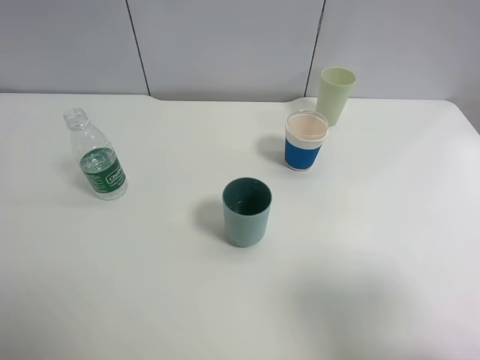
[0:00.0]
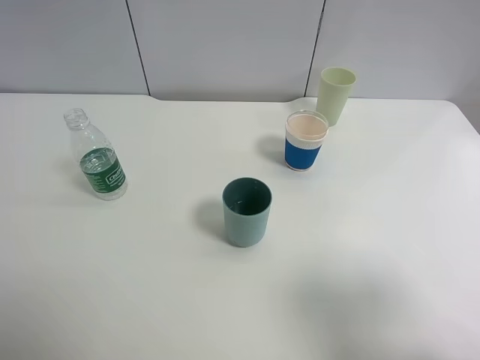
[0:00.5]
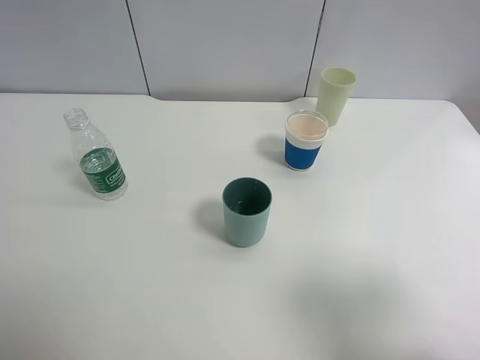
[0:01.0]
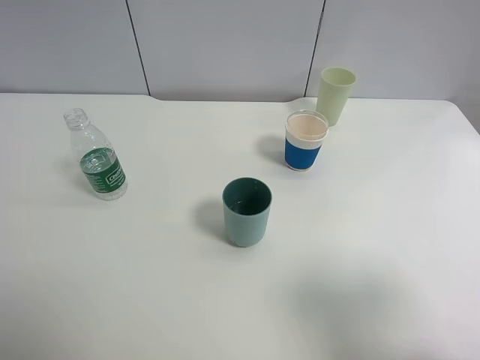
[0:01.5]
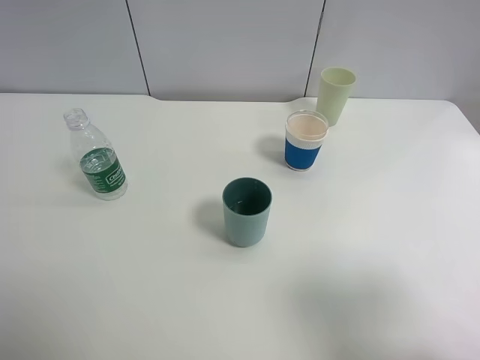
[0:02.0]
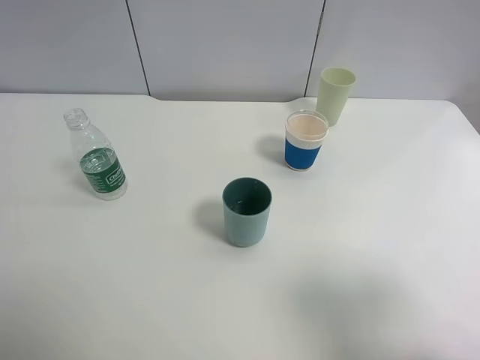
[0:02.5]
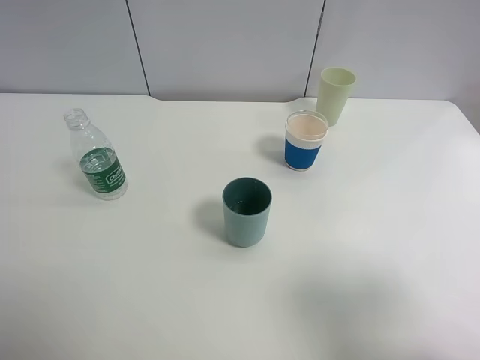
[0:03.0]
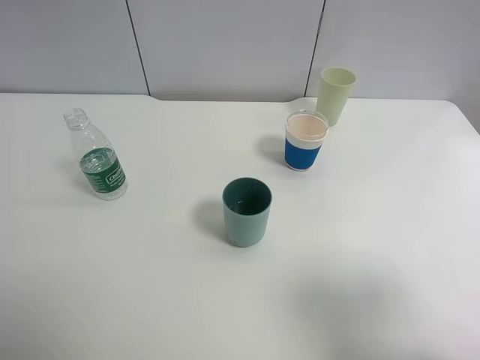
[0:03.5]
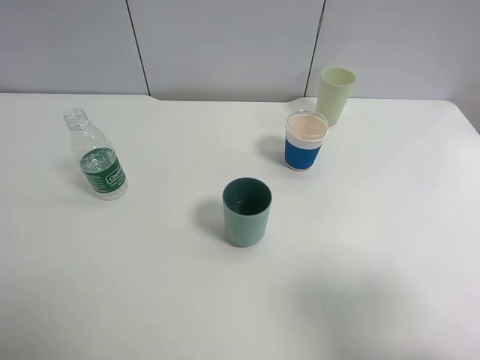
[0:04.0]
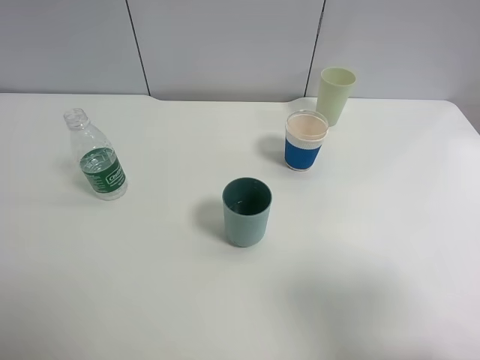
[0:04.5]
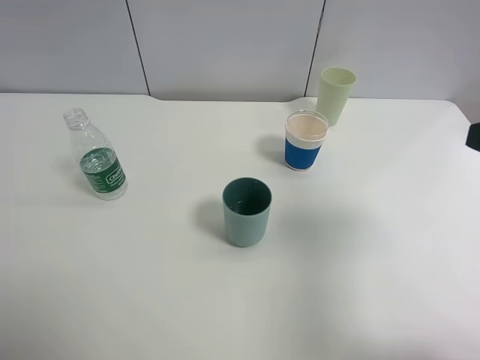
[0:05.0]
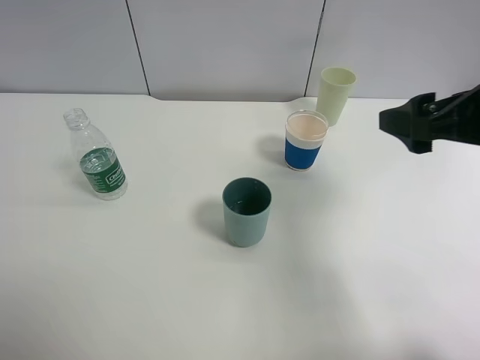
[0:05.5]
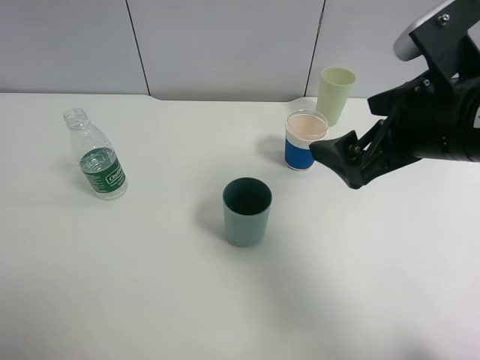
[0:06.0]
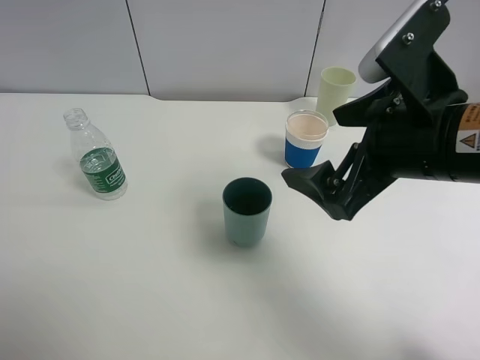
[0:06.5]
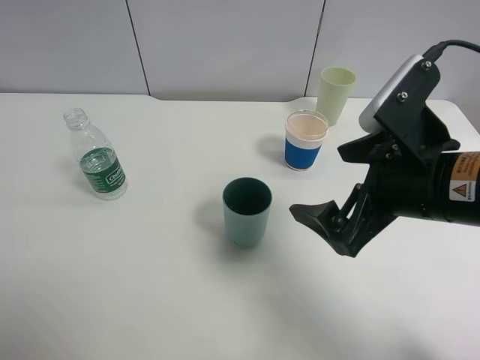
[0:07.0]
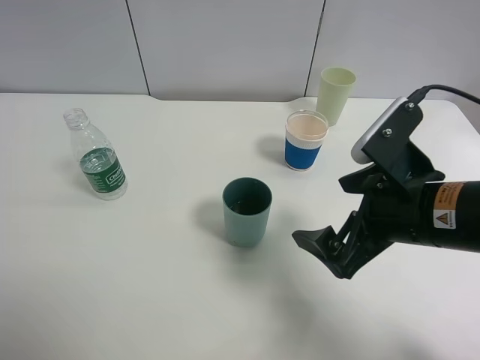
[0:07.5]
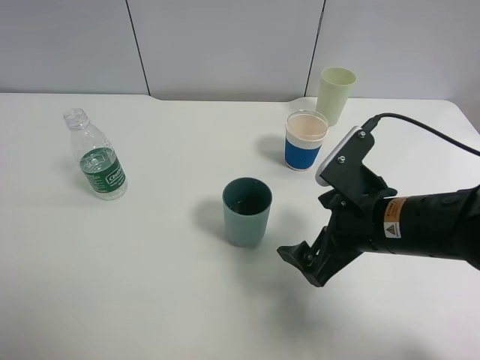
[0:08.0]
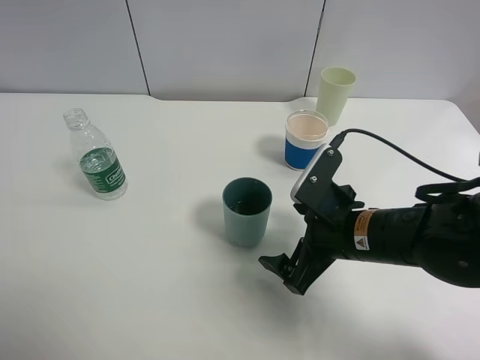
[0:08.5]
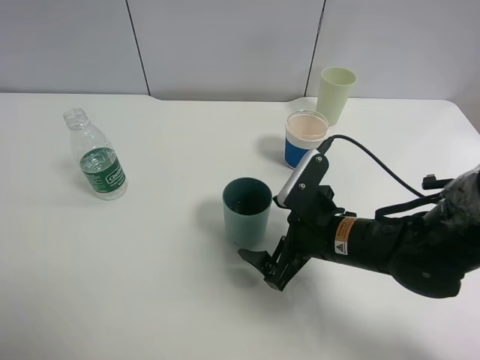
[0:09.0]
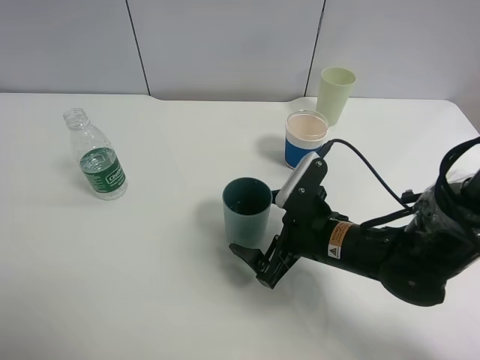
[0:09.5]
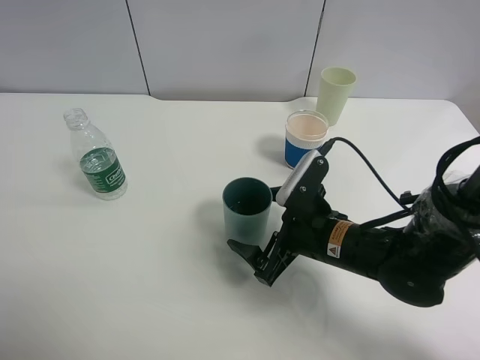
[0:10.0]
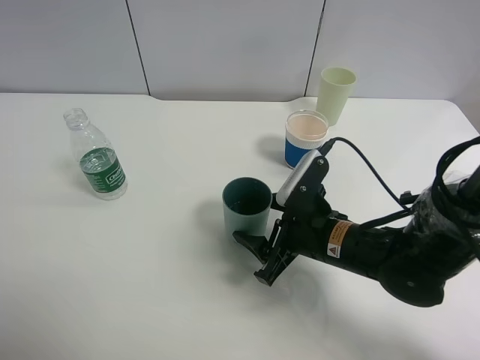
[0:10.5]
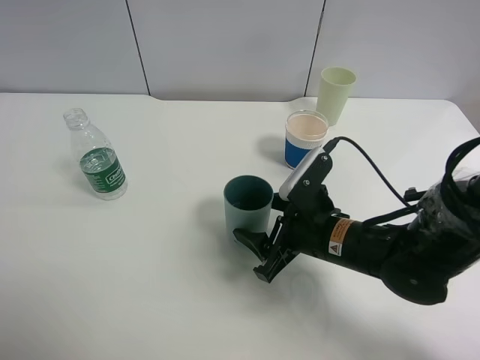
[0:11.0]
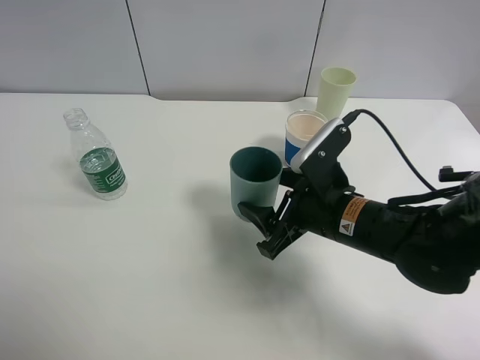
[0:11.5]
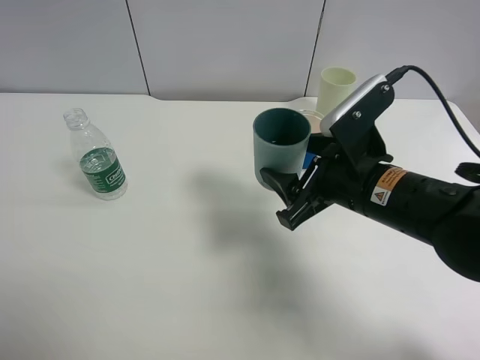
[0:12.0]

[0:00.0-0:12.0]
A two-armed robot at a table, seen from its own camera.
Task of the whole recording: use a clamp to hold the bottle of the drink, pour the beverage into a random cup, then clamp the cup containing the drink and pour the drink into another random cup.
Step, 0:00.0 to 0:11.5: Pick up the blue plastic cup bottle with right gripper.
0:00.0 to 0:04.0: Both grippers stay about where they are.
0:04.0 to 0:06.0: The right gripper goes approximately 20 cm forward and to the left.
0:06.0 to 0:08.0: The right gripper is displaced downward by roughly 10 cm.
0:08.0 to 0:10.0: The right gripper shifts roughly 5 cm downward.
0:10.0 to 0:12.0: The right gripper goes approximately 10 cm upward, and closes up.

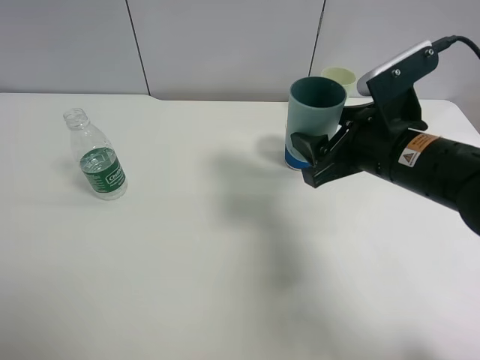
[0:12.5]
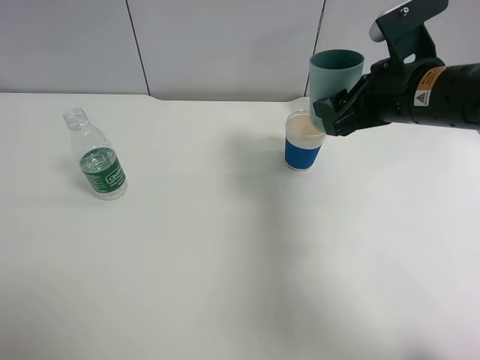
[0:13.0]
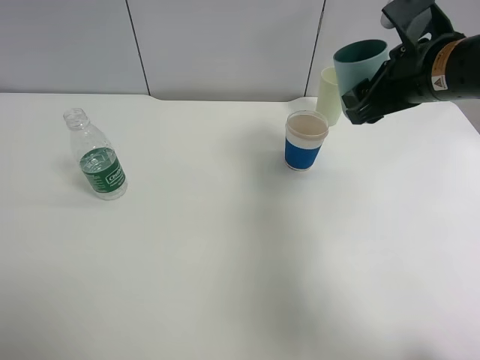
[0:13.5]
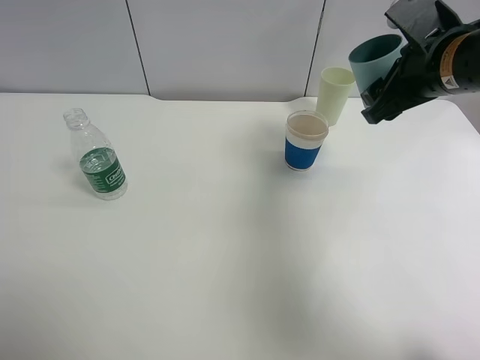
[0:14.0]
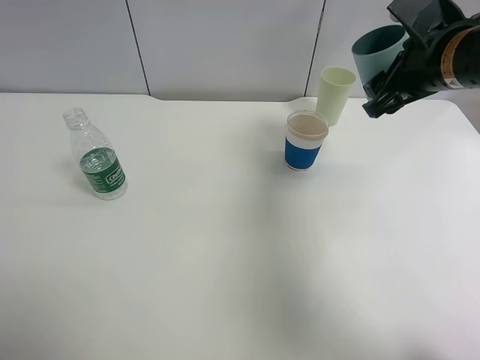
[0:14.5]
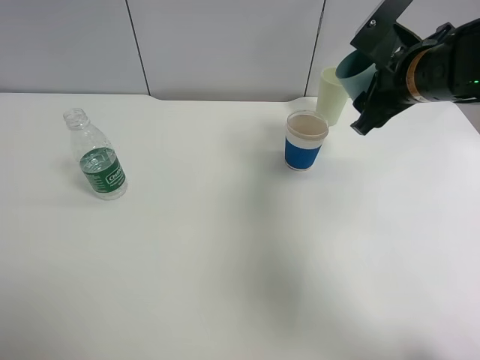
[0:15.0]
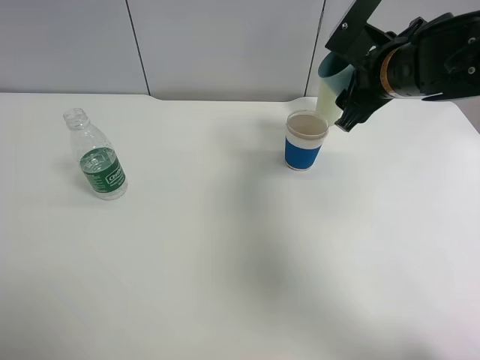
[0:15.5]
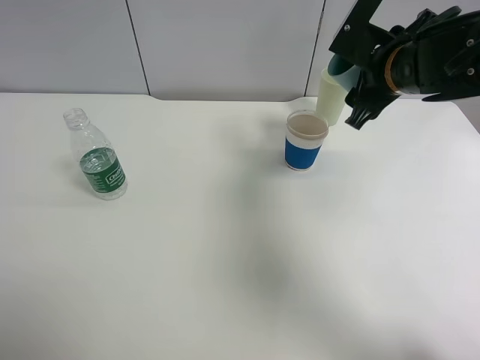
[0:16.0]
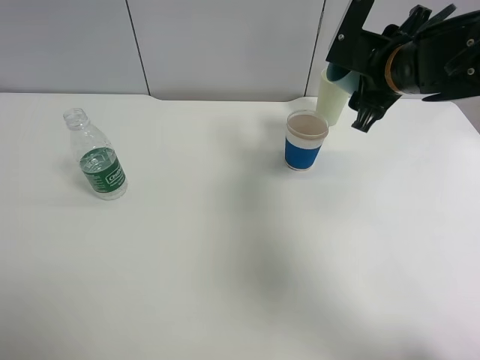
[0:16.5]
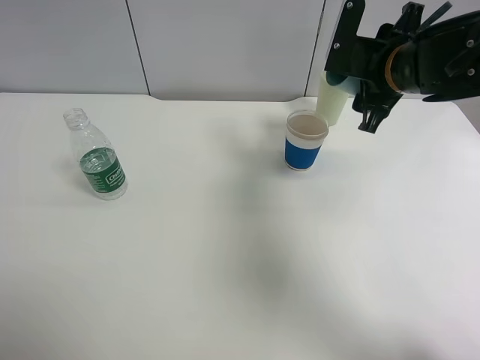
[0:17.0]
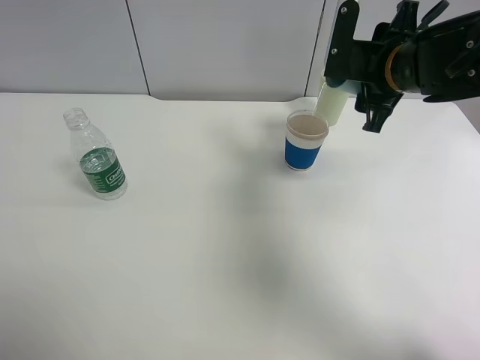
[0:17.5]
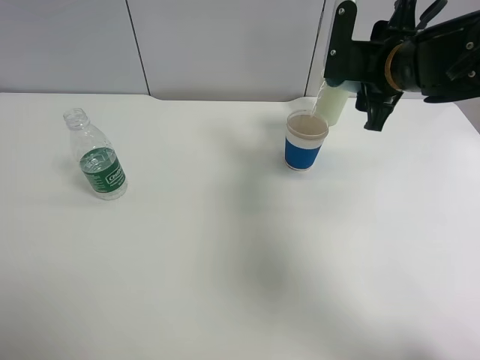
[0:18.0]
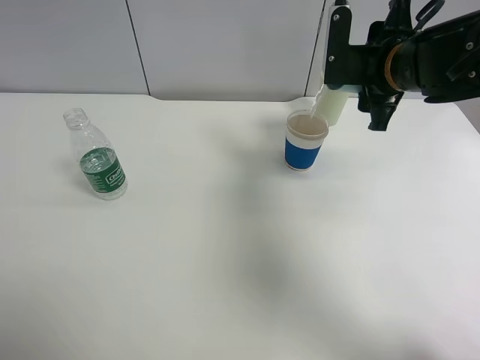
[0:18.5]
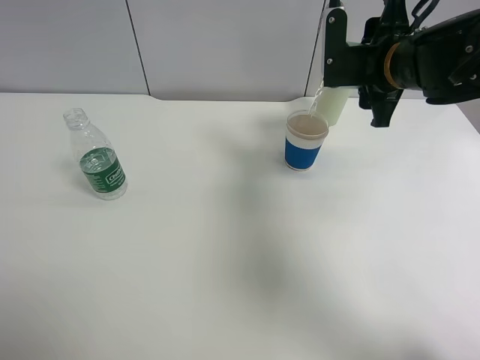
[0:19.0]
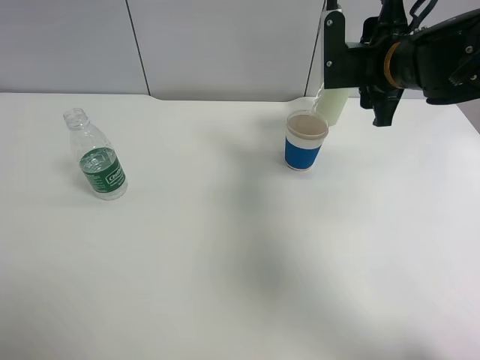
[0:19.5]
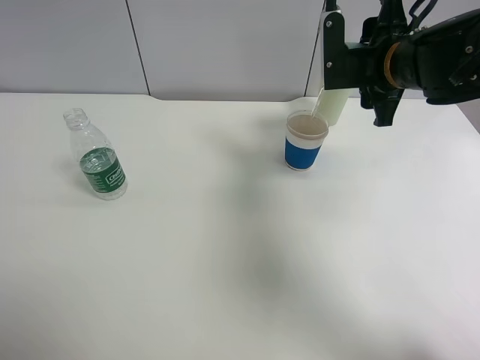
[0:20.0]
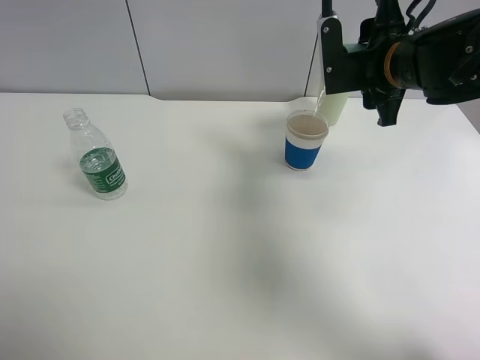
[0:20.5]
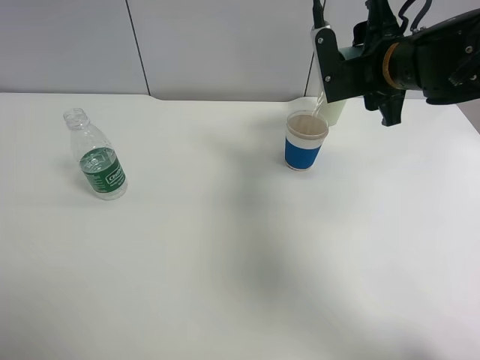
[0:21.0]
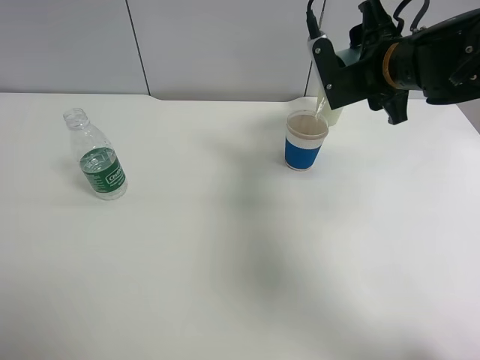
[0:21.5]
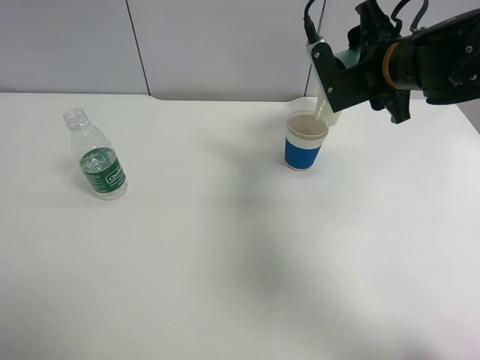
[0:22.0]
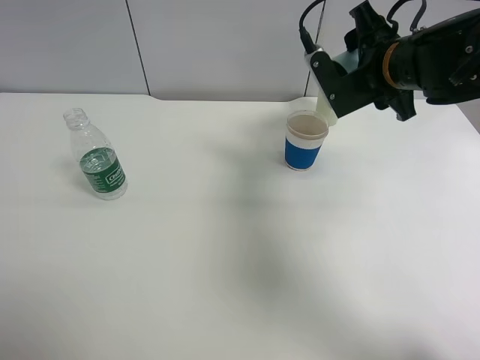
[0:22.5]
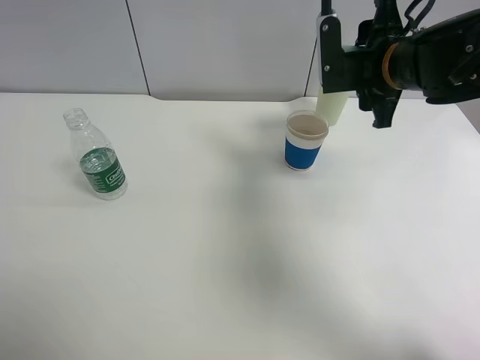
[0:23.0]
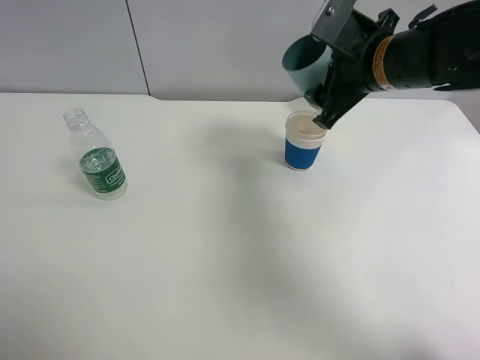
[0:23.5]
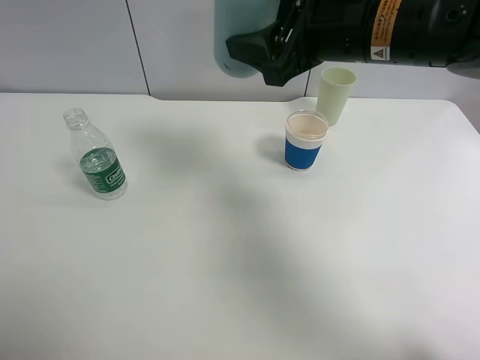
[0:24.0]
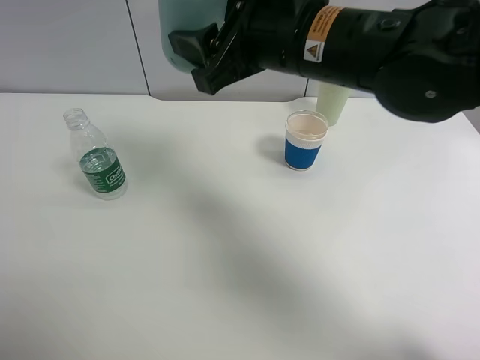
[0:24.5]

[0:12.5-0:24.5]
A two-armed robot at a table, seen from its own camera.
Task of the whole recording: use a clamp to hold the bottle of the drink, pour the beverage into a random cup, then clamp the cup containing the drink and pour the drink into another random cup.
Step, 0:12.5 to 0:22.5: Pour water into the paper cup with right gripper.
0:12.5 to 0:14.5: The right gripper heads forward, upward and to the right, covering roughly 10 cm.
0:14.5 to 0:16.5: The right gripper moves roughly 5 cm.
0:16.5 to 0:18.5: The grippers move only a little.
0:18.5 to 0:20.5: The grippers stay close to where they were, moving slightly.
0:22.5 to 0:24.5: The right gripper is displaced to the left and backward by some 15 cm.

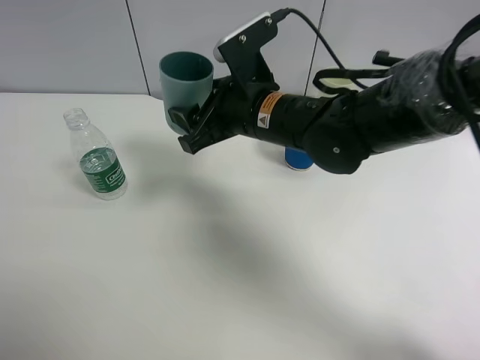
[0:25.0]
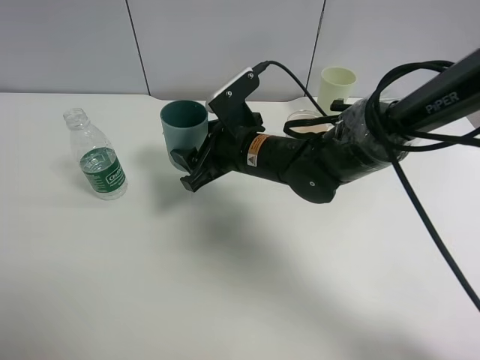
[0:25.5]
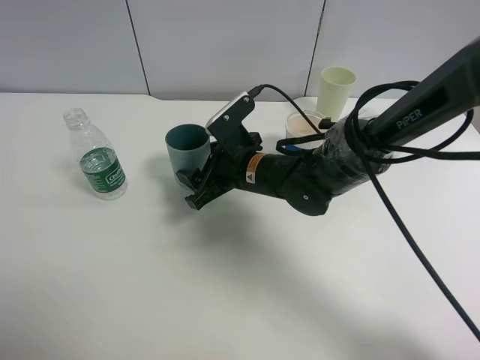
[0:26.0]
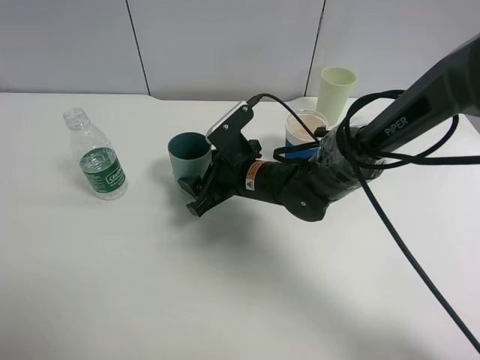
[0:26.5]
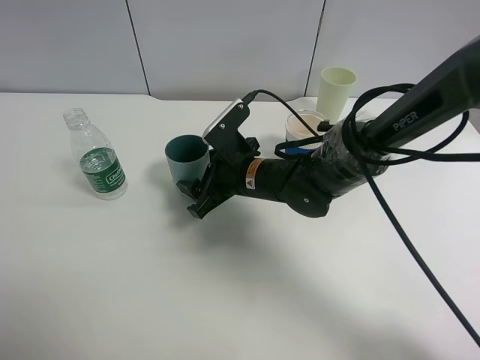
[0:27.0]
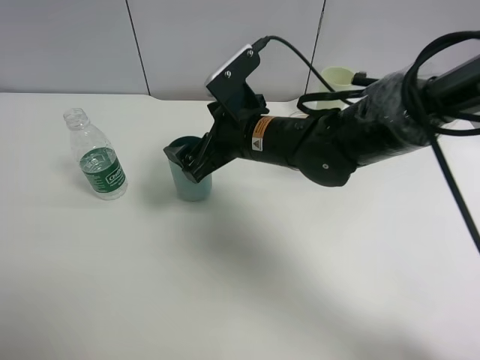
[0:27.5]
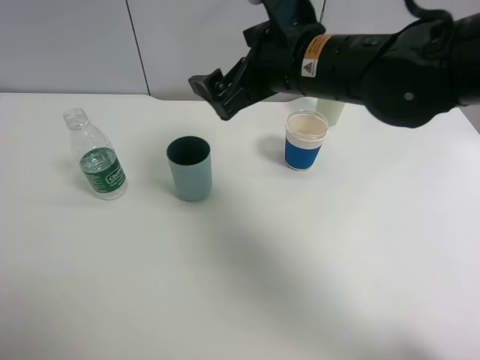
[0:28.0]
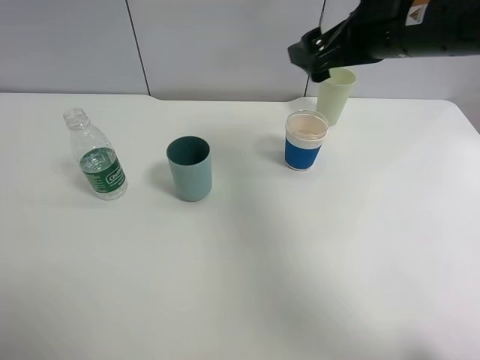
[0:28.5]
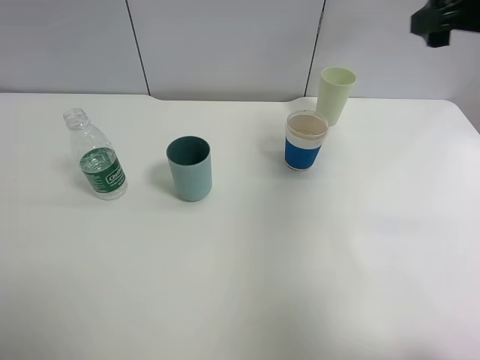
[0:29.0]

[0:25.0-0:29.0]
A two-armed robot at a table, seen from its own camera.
Task of the whole recording: use a clamp to hold the bottle of the drink, pour the beverage into a random cup, then clamp the cup containing the drink and pour the drink into another random cup.
Step, 0:25.0 to 0:27.0: Place the blue plastic cup on the table with right gripper.
0:25.0 to 0:27.0: The right gripper goes roughly 10 cm downward.
0:27.0 to 0:29.0: The right gripper heads to the right and upward, covering approximately 35 cm, and opens its fingers.
